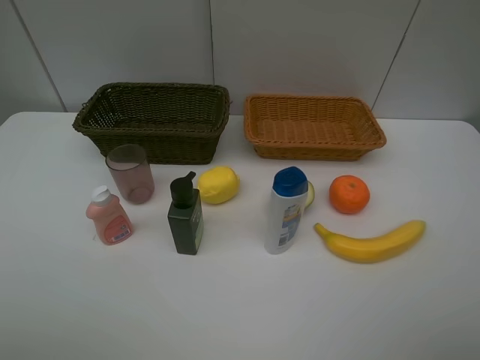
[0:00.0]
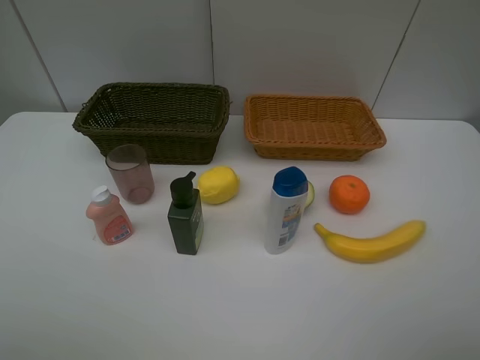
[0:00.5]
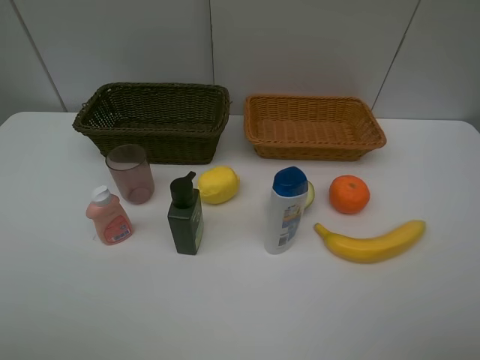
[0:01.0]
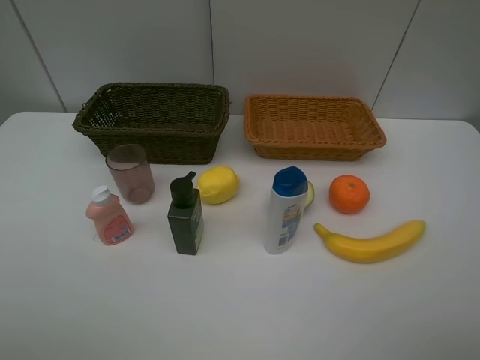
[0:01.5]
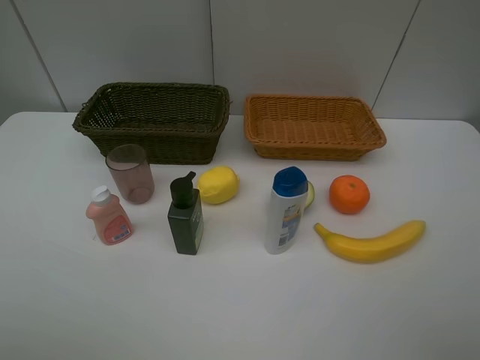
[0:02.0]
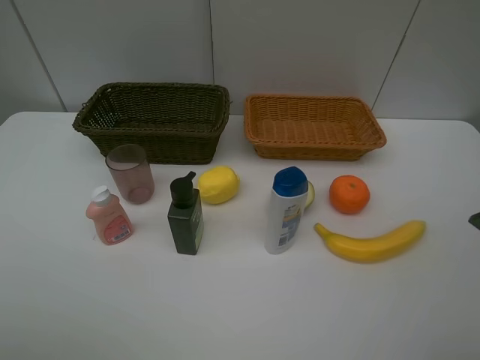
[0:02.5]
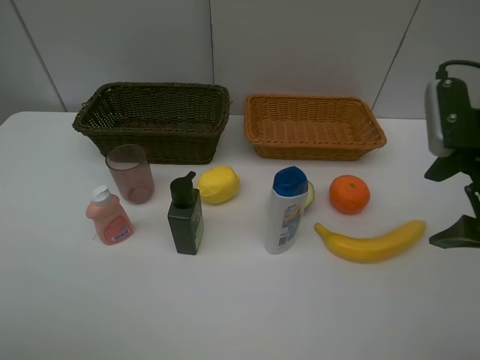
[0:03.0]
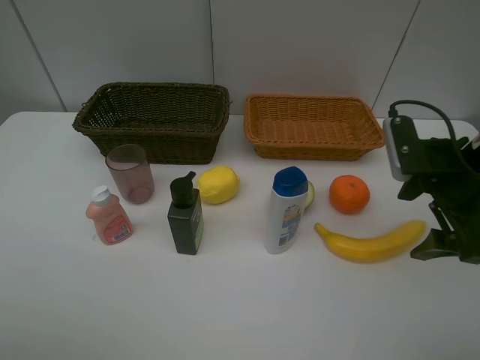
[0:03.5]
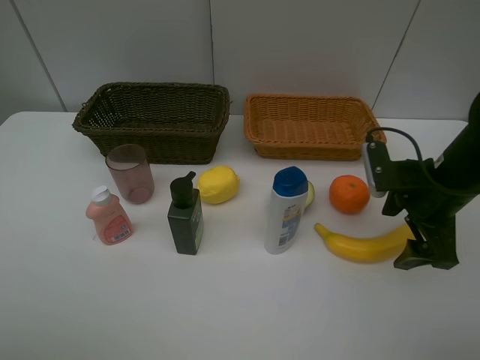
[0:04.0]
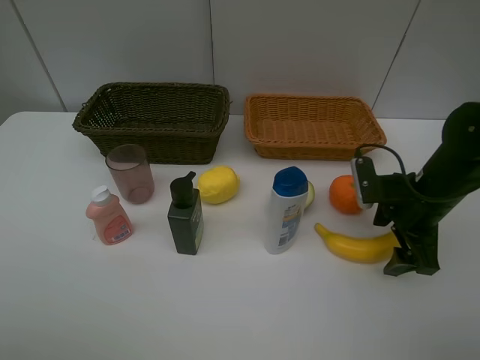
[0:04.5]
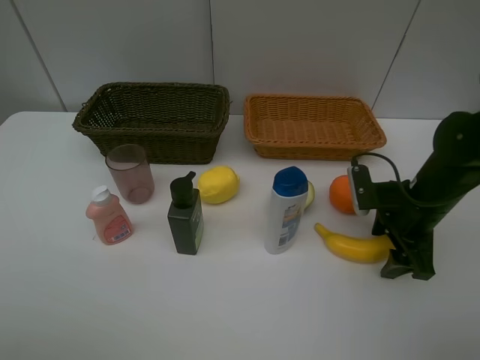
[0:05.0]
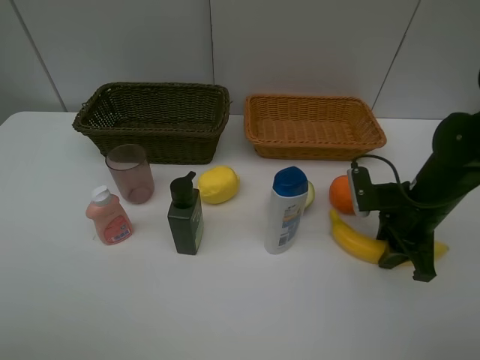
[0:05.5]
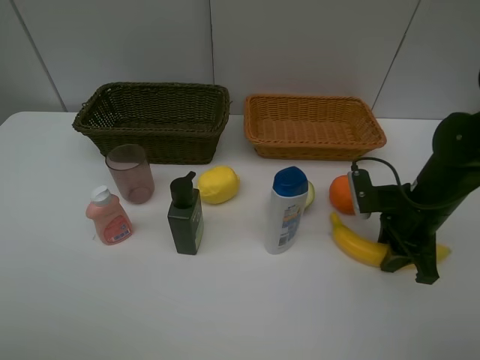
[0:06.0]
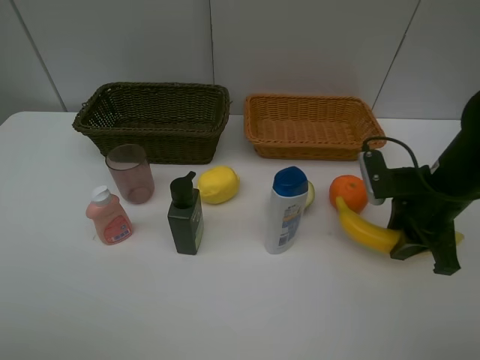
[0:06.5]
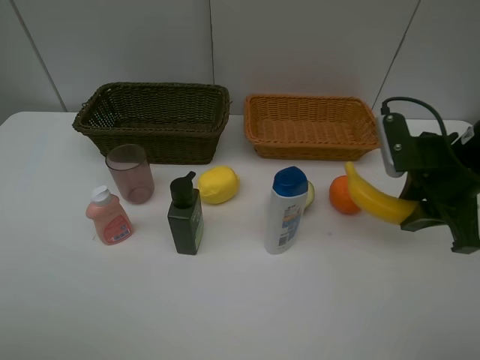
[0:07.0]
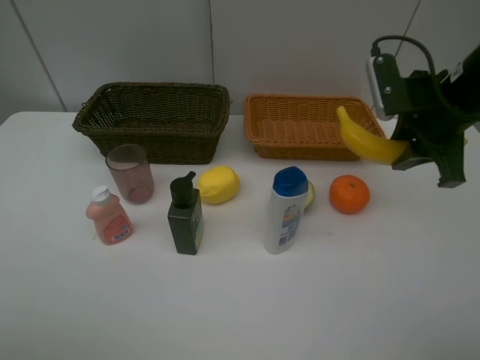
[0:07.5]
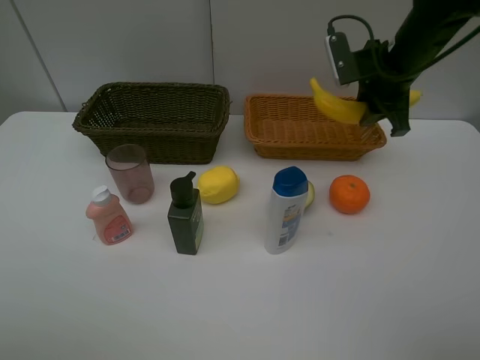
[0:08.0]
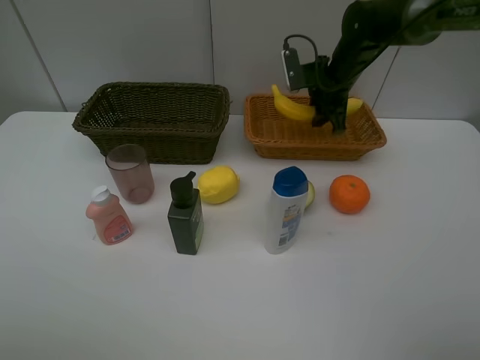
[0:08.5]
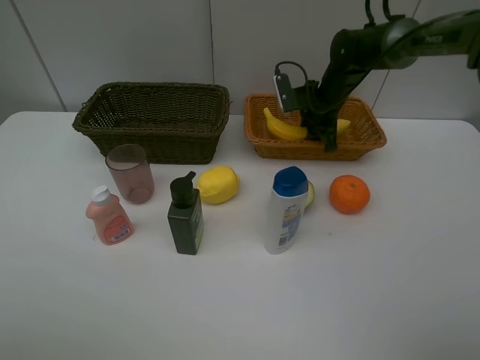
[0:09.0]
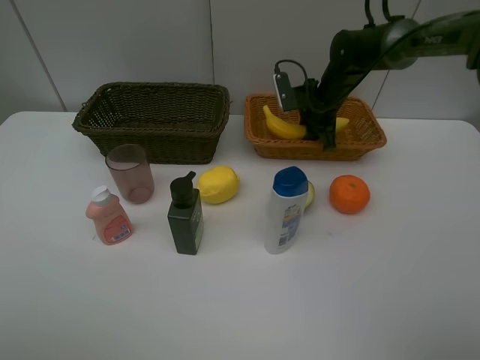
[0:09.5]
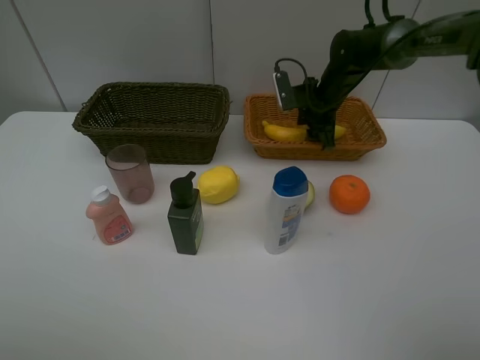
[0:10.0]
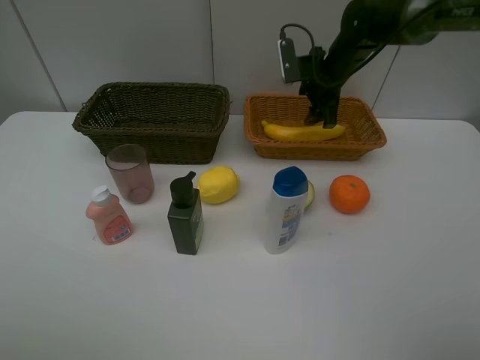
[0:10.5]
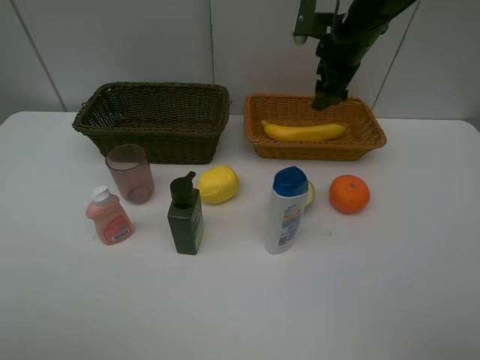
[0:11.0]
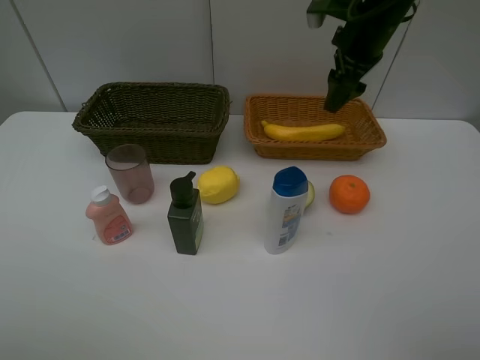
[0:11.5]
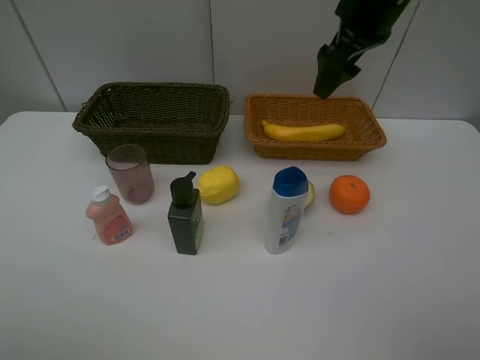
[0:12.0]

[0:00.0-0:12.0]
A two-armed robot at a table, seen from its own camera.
Task of the whole recording: Place multiple objects separately in different baskets.
Step, 0:00.0 to 0:06.0: Pick up banana with right gripper.
Step, 0:06.5 to 0:10.0: Place the banana in the light basket with right gripper.
0:02.0 to 0:04.0: The right gripper shifts roughly 25 cm forward and downward.
0:04.0 to 0:06.0: The right gripper closes.
0:06.0 to 0:08.0: The right gripper moves forward and upward, roughly 20 cm.
0:08.0 to 0:10.0: The right gripper is displaced downward, forward and to the left by about 15 cm, and opens its fingers.
0:10.0 to 0:12.0: The right gripper goes about 20 cm upward and backward, and opens.

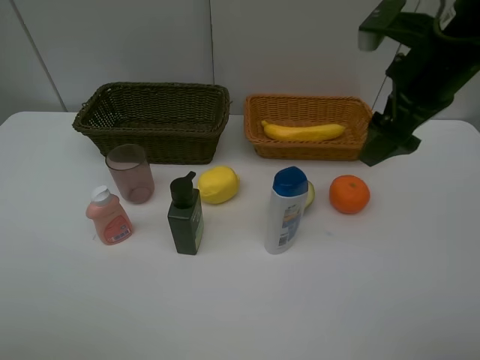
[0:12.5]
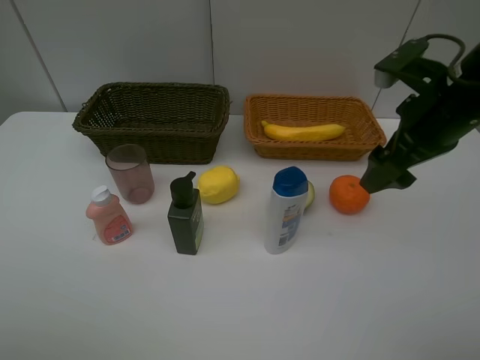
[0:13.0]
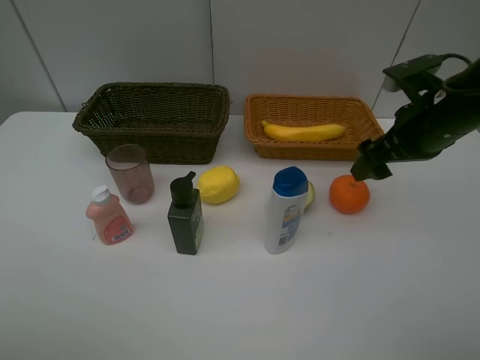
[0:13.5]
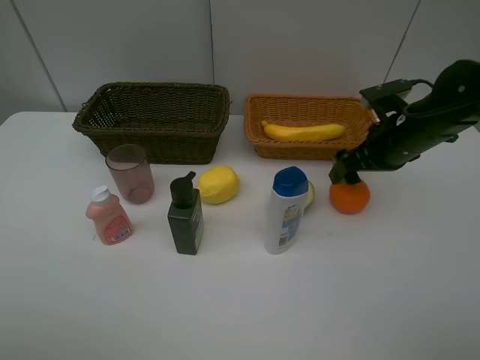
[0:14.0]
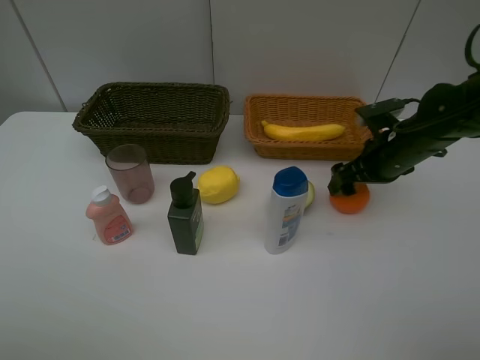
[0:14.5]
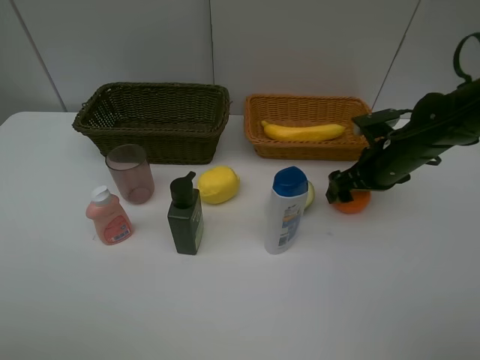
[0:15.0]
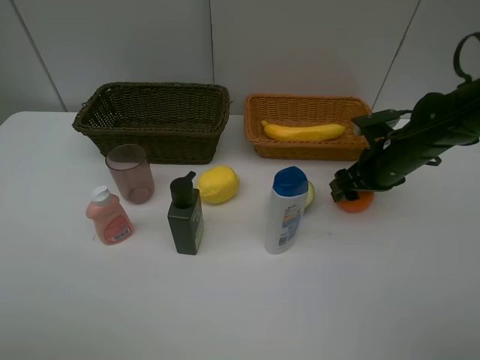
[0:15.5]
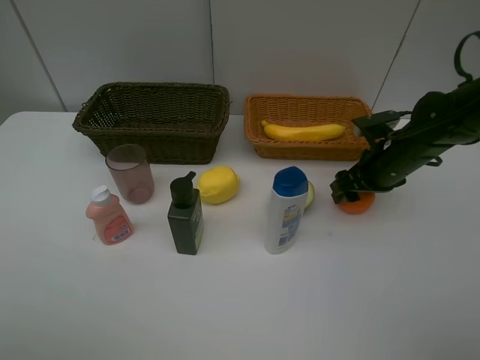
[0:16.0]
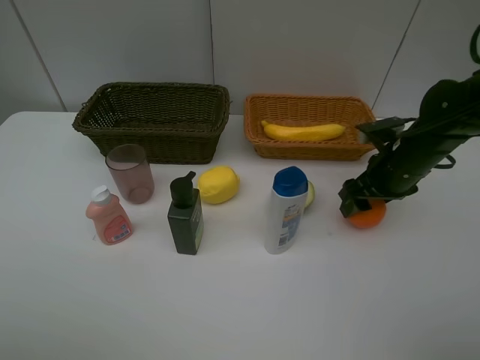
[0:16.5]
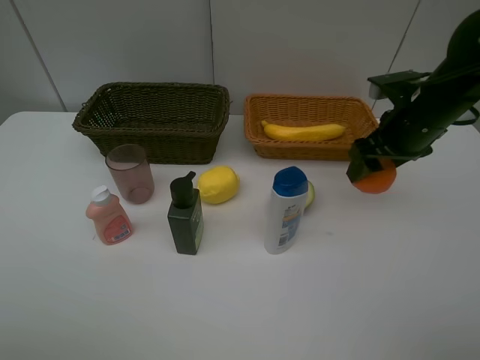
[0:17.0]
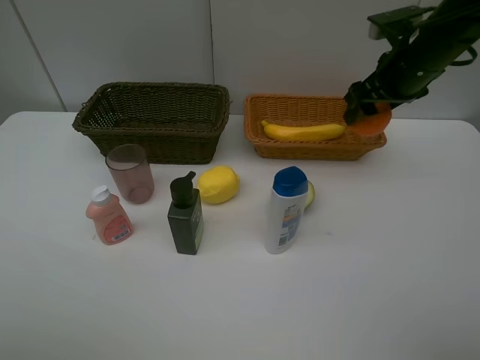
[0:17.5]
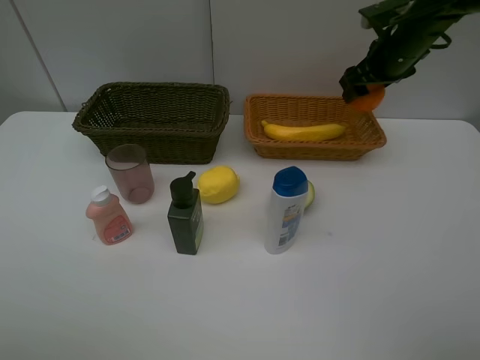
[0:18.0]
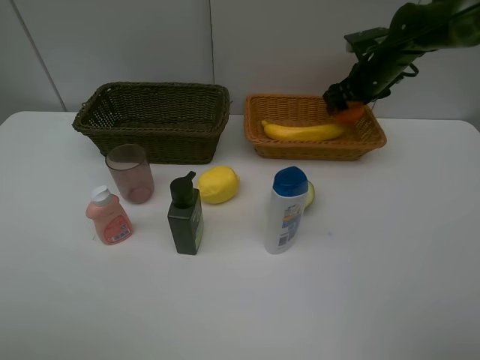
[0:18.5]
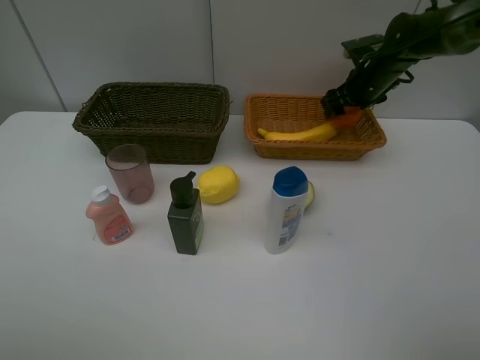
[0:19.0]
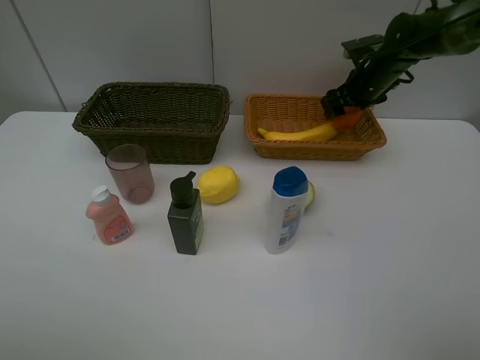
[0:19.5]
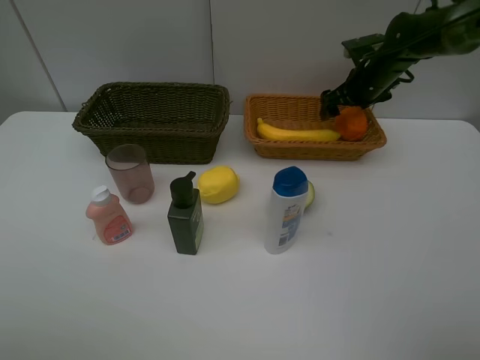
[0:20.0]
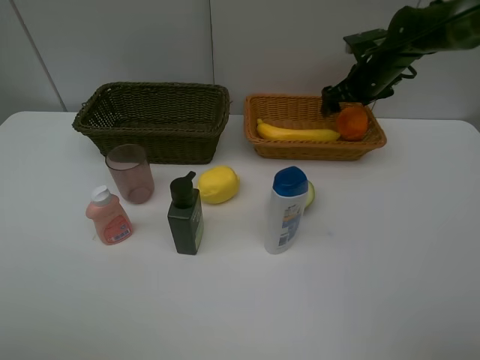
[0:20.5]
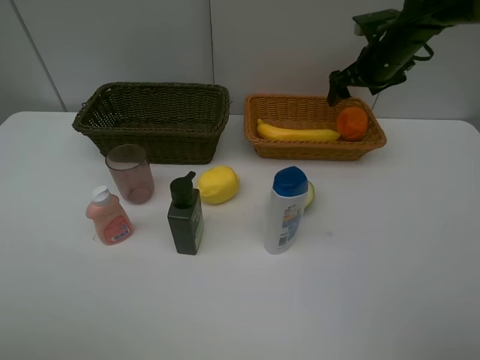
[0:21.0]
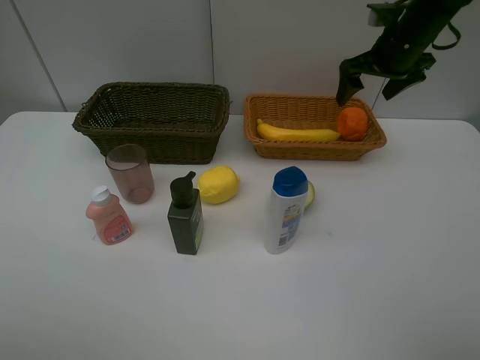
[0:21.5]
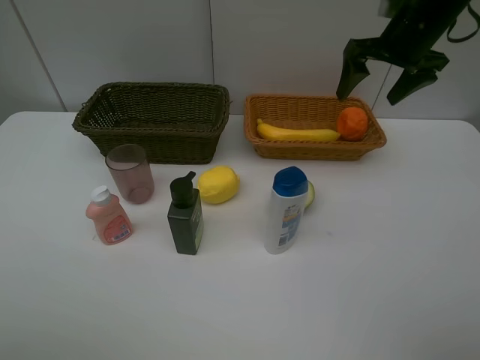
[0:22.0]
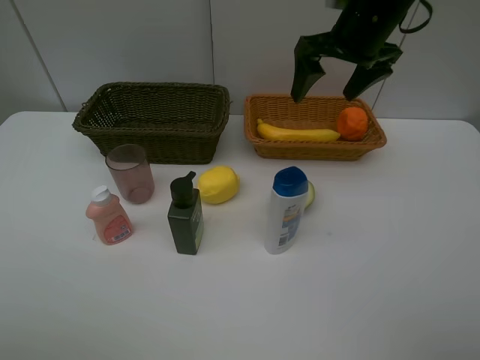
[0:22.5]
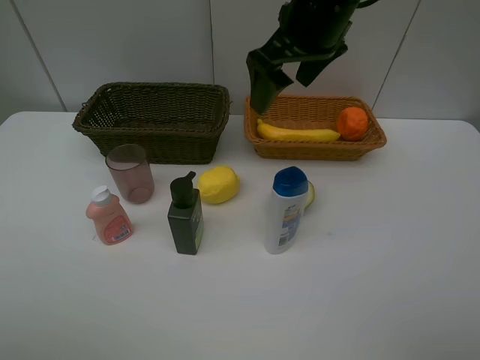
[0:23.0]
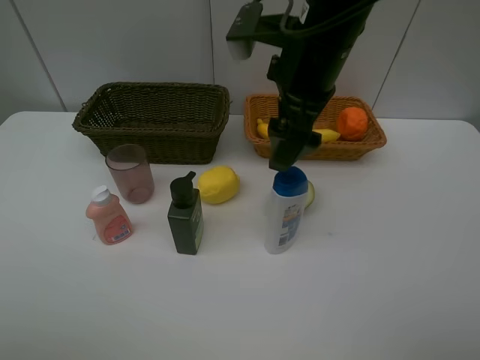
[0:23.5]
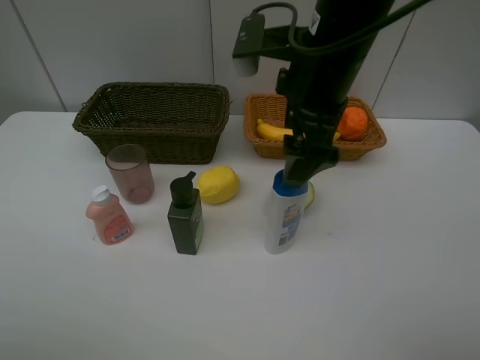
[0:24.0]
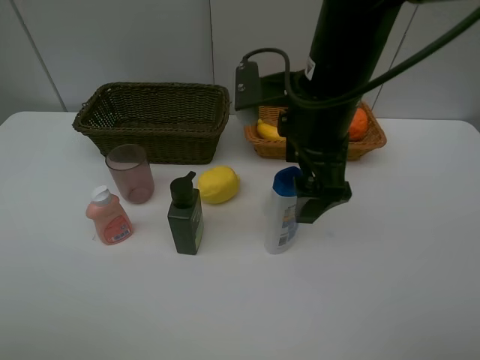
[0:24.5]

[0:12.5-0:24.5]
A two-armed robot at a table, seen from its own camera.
Task of the whole recording: Place multiple objects separately in different baskets.
Step, 0:12.5 to 0:16.5: Pick up the orange with right gripper.
Step, 0:17.0 to 0:20.5: Place the orange in the light basket with right gripper.
0:12.5 to 0:14.5: The right gripper heads downward, covering some 15 cm.
0:14.5 to 0:16.5: The right gripper closes its fingers.
0:16.5 to 0:18.5: The right gripper goes approximately 20 cm forward.
0:18.5 to 0:20.5: The right gripper opens up.
0:20.5 to 0:22.5: The right gripper moves upward, backward and to the left, approximately 20 cm.
0:22.5 to 0:24.5: The right gripper shifts some 15 cm backward and to the left.

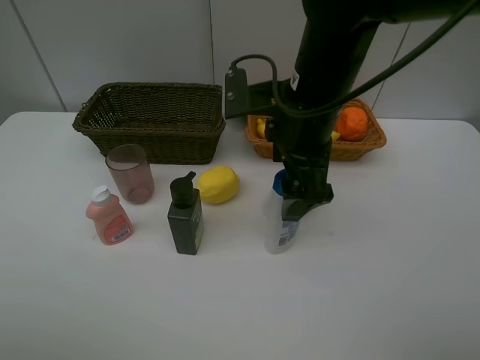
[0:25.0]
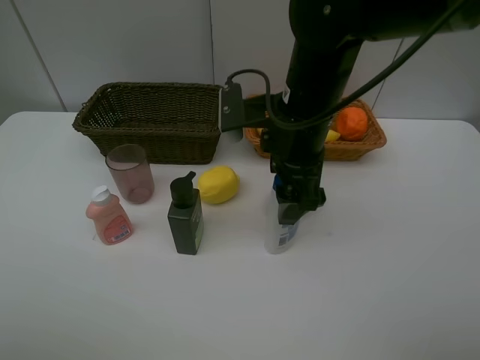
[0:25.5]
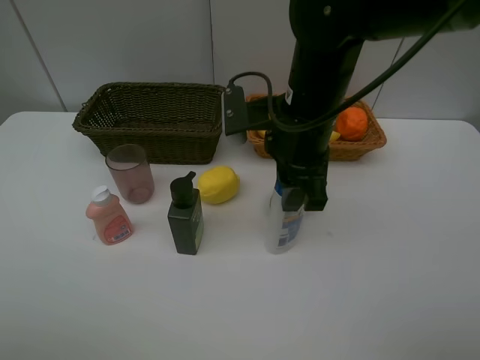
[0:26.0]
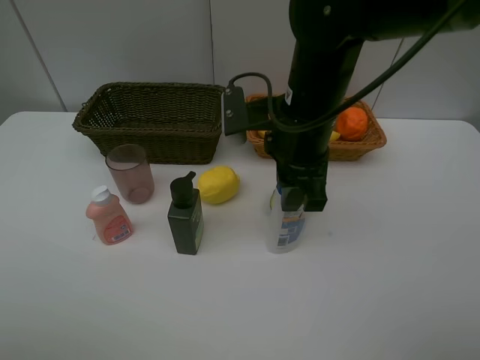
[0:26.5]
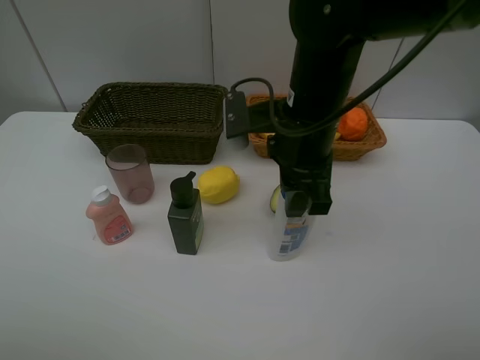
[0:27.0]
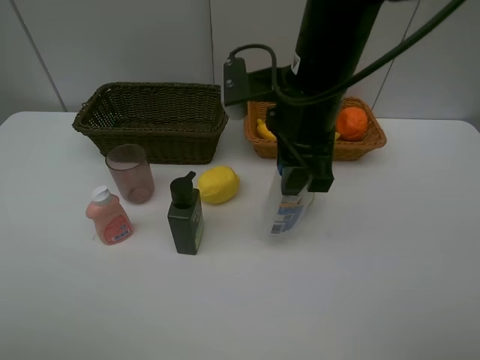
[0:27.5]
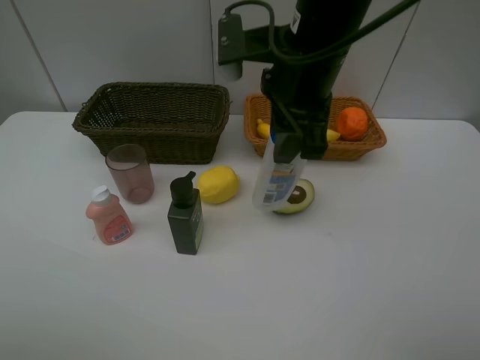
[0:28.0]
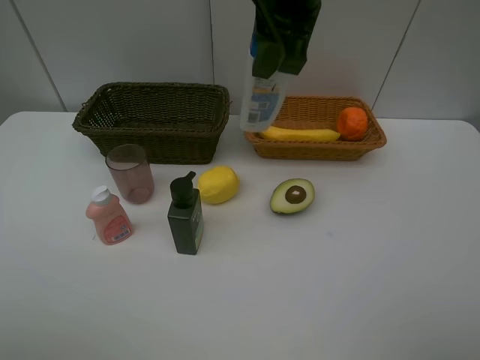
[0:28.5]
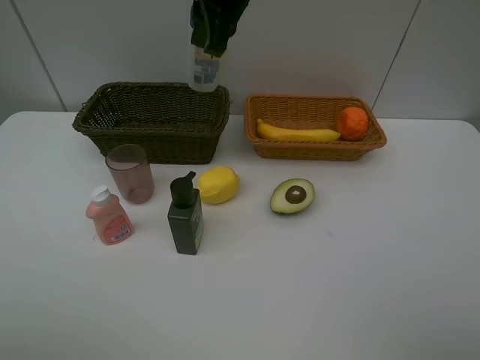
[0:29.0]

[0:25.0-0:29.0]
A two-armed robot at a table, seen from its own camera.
Task of the whole recording: Place multiple objects separately in different baskets.
Step, 0:25.0 to 0:27.5: Pick up the shampoo with right gripper.
0:25.0 to 0:27.0: The right gripper closes up.
0:27.0 to 0:29.0: The right gripper heads upward, forward and to the left, covering some 15 cm.
